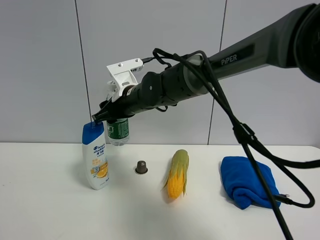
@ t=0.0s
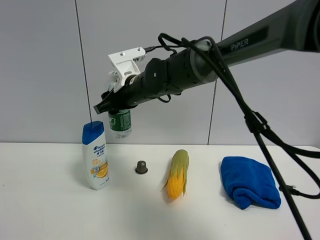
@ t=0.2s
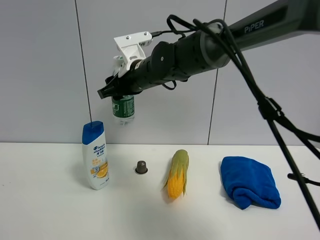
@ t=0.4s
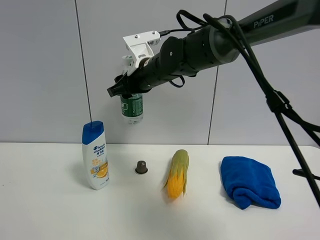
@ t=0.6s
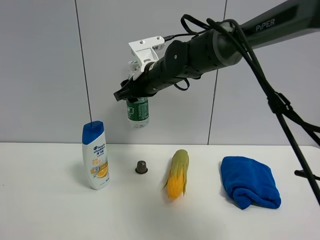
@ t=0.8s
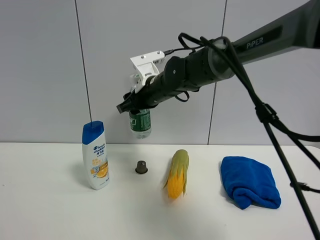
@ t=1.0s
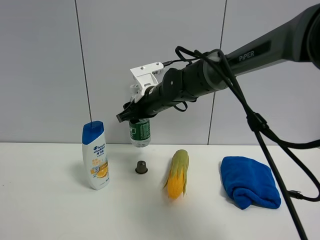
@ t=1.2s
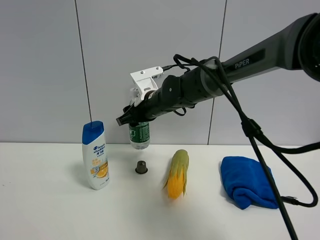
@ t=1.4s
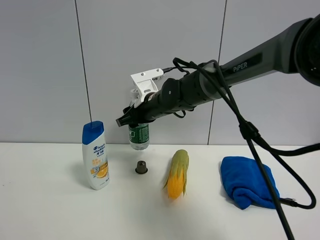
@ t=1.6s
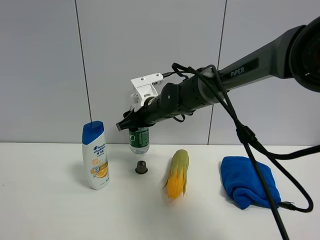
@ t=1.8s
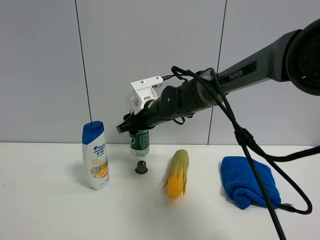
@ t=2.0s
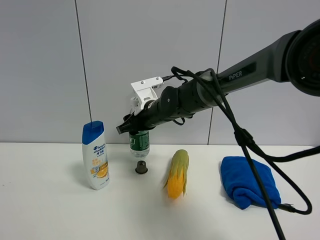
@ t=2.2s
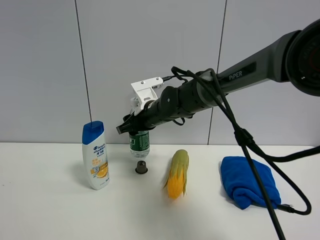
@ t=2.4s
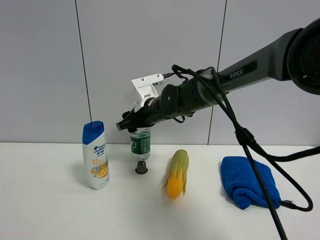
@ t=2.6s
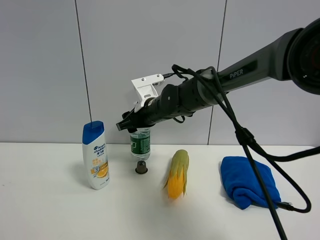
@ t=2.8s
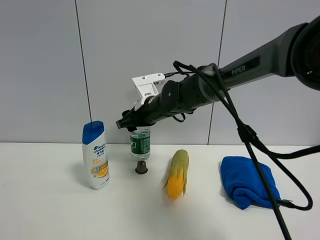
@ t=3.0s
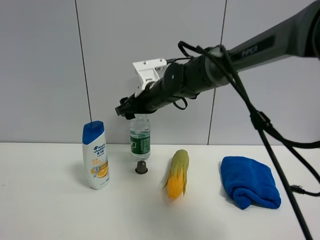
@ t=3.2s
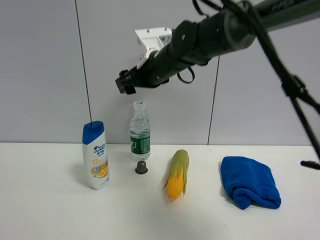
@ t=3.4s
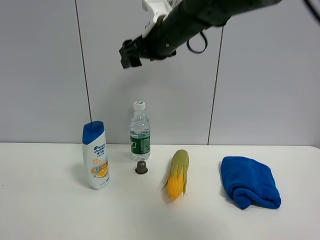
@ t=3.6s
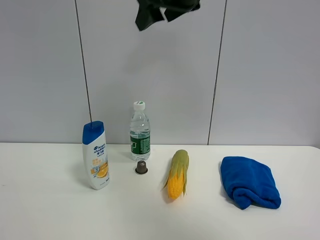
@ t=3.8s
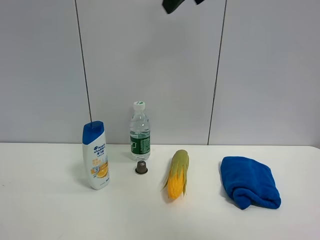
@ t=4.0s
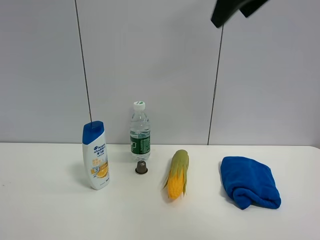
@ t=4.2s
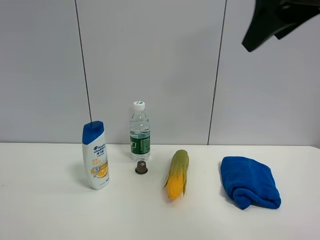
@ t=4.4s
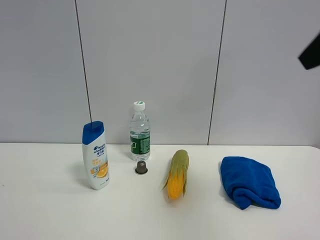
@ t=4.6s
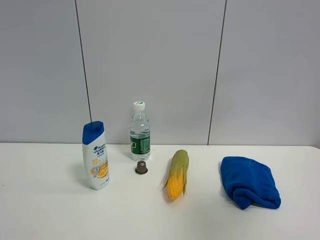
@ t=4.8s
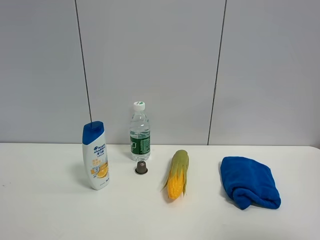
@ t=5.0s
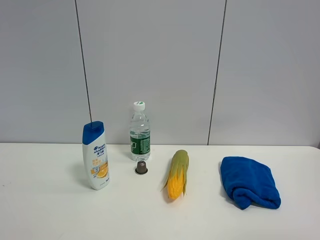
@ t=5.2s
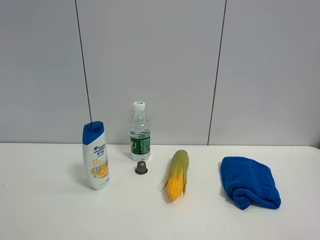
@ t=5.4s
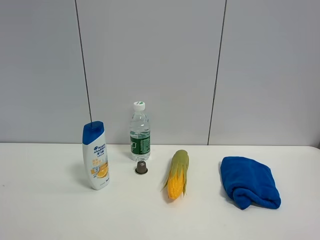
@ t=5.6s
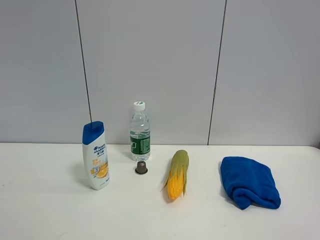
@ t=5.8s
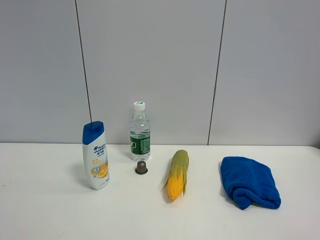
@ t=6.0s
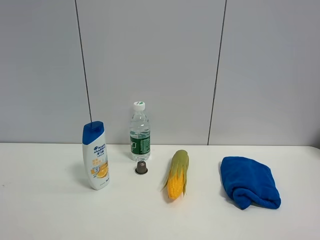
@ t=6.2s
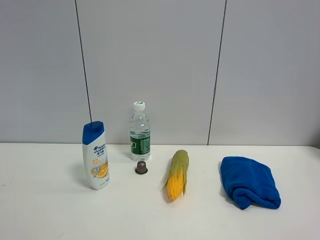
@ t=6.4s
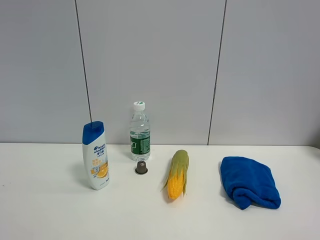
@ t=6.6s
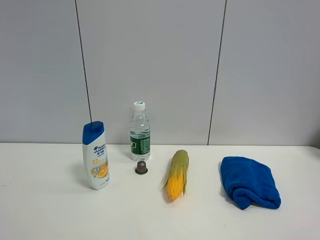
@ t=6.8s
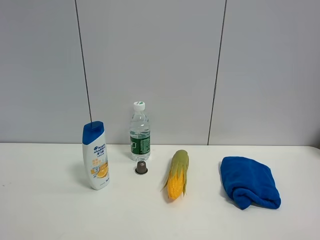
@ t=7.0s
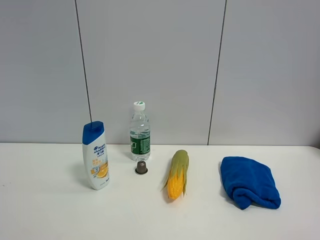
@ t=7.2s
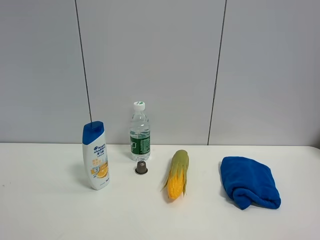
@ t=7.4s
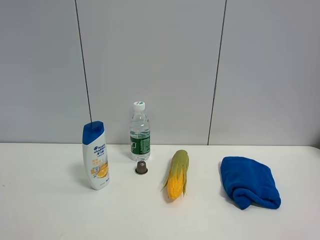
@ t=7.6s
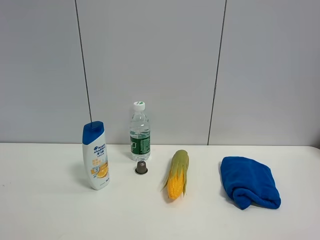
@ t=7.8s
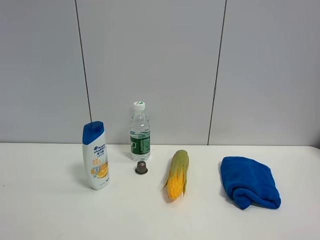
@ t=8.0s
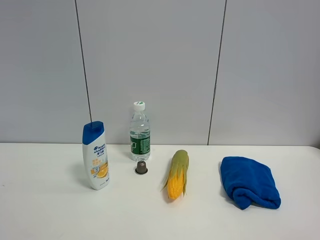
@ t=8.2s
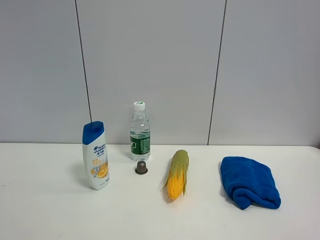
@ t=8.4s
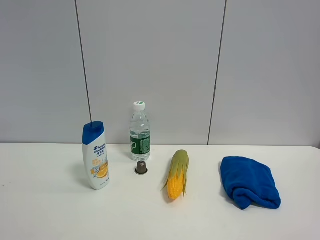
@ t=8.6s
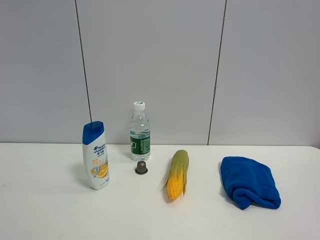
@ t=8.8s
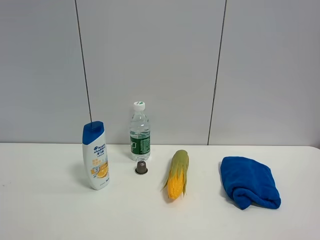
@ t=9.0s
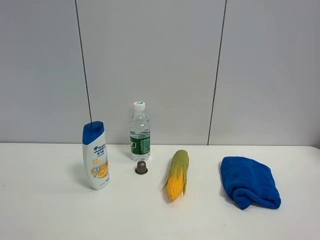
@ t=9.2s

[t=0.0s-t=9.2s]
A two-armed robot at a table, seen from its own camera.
Task of the whole recording: the gripper move the object.
Step, t=0.0s to t=3.2s: Place the YiBao mineral water on the table with the right gripper.
t=0.0s to t=1.6s: The right gripper goes upward and returns, some 5 cm each way.
t=1.6s to t=3.0s: The grippers move only a little.
t=3.0s to t=4.6s: The right gripper moves backward, to the right and upward, roughly 40 cm.
t=4.6s to t=6.2s: The right gripper heads backward and downward, covering some 20 cm.
t=6.2s to t=9.2s: The two grippers keep their place.

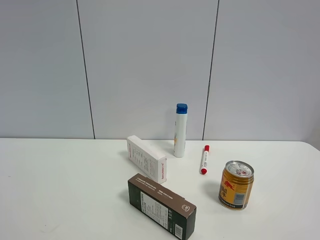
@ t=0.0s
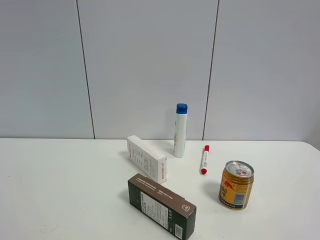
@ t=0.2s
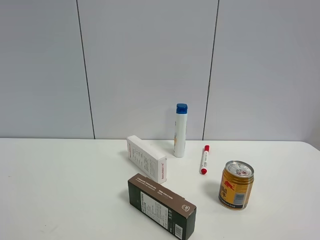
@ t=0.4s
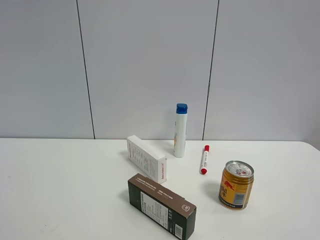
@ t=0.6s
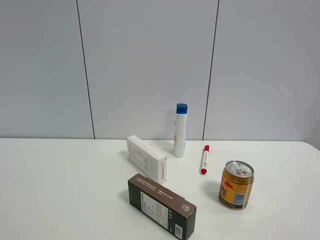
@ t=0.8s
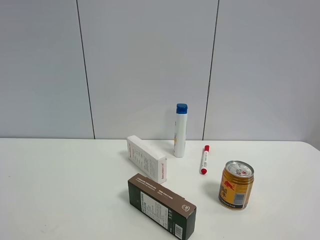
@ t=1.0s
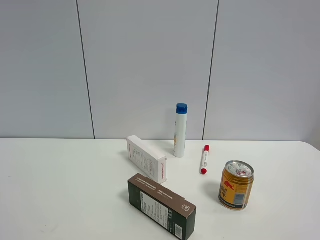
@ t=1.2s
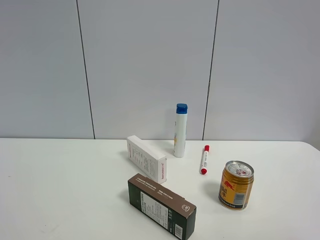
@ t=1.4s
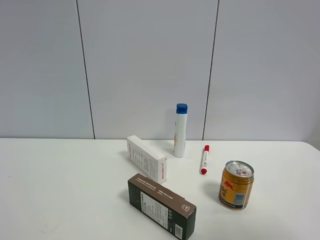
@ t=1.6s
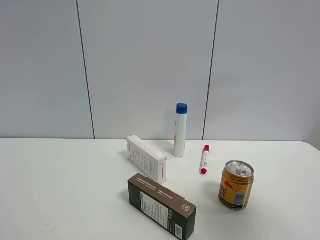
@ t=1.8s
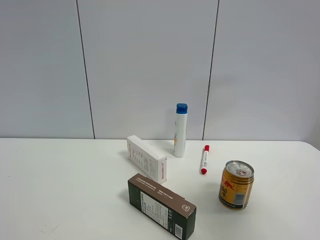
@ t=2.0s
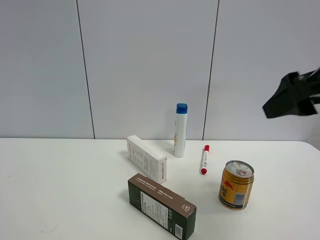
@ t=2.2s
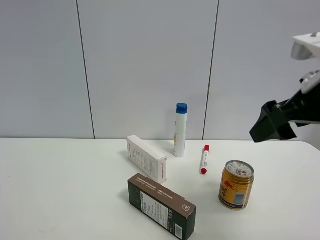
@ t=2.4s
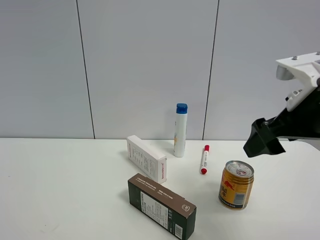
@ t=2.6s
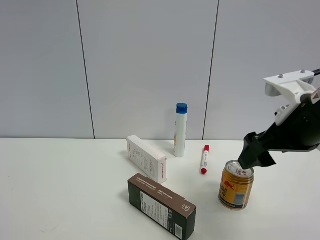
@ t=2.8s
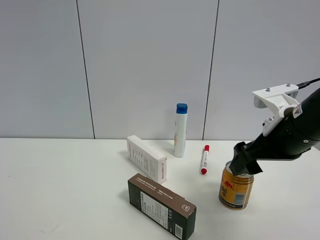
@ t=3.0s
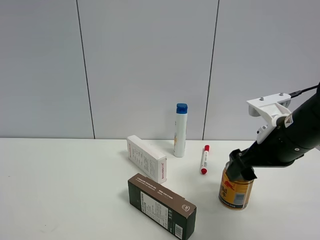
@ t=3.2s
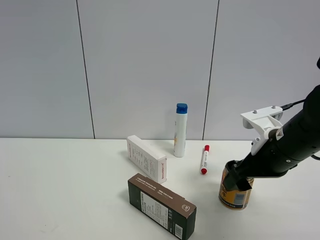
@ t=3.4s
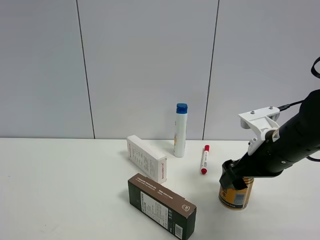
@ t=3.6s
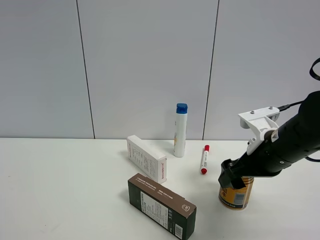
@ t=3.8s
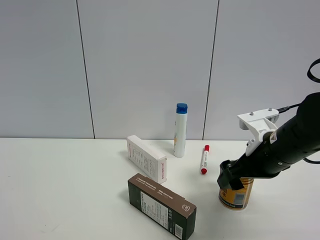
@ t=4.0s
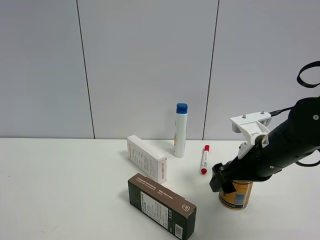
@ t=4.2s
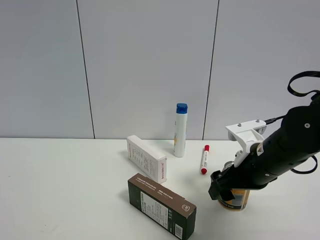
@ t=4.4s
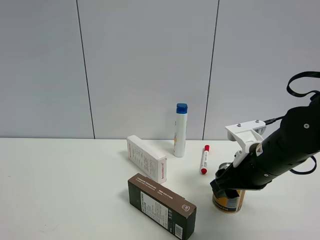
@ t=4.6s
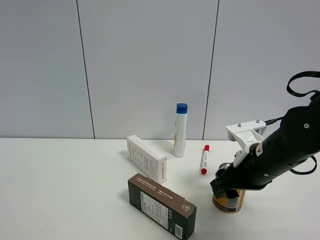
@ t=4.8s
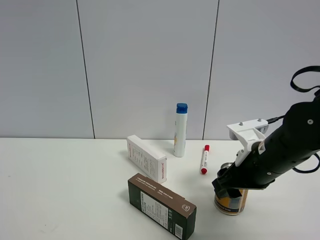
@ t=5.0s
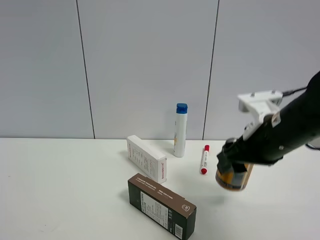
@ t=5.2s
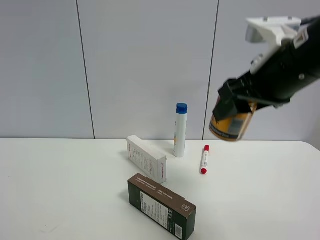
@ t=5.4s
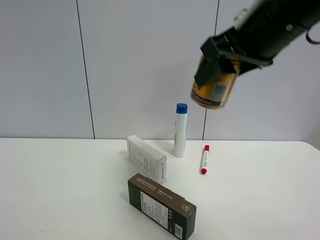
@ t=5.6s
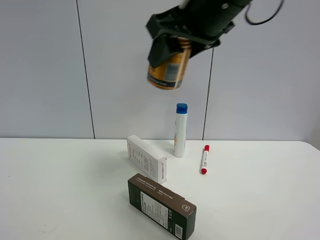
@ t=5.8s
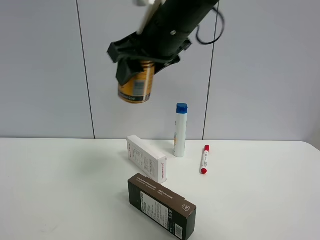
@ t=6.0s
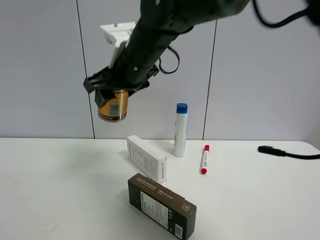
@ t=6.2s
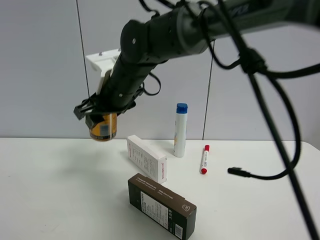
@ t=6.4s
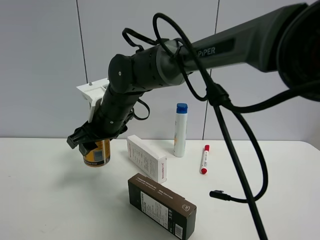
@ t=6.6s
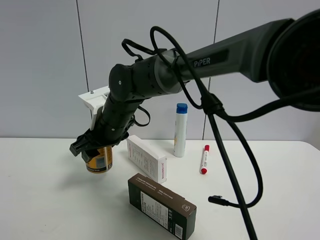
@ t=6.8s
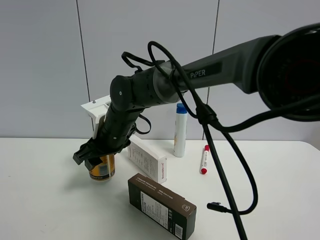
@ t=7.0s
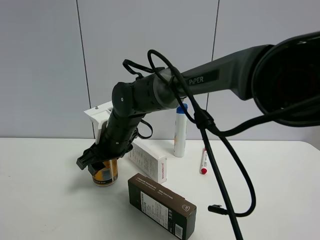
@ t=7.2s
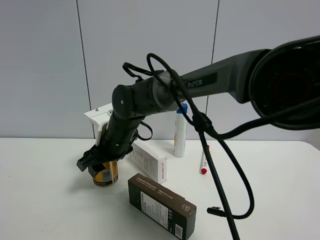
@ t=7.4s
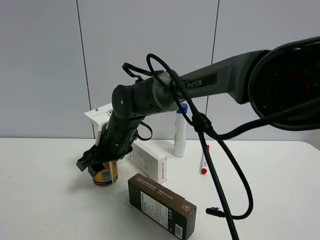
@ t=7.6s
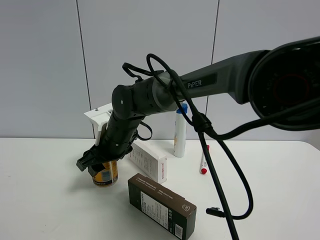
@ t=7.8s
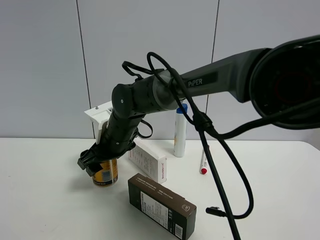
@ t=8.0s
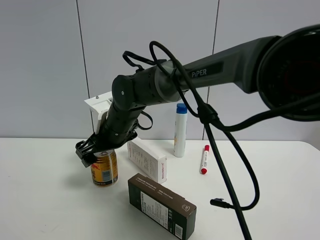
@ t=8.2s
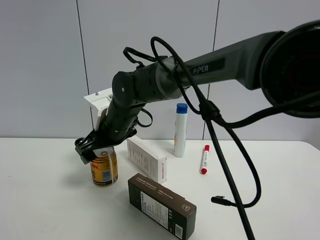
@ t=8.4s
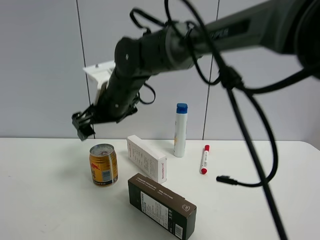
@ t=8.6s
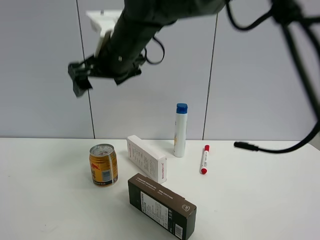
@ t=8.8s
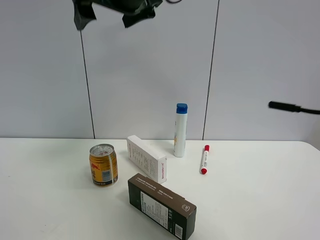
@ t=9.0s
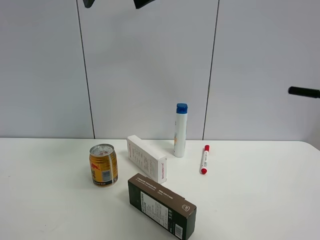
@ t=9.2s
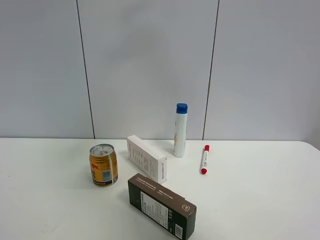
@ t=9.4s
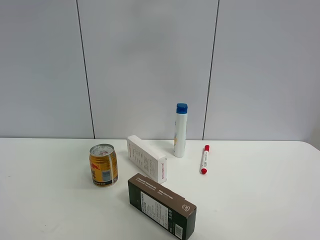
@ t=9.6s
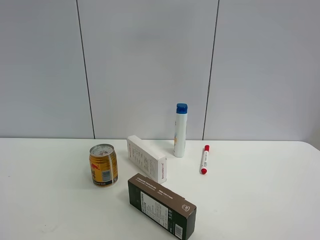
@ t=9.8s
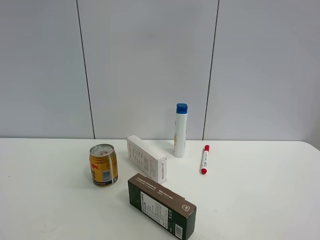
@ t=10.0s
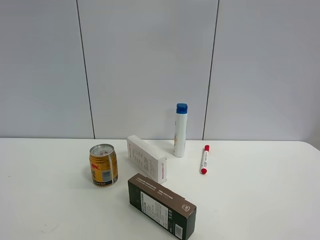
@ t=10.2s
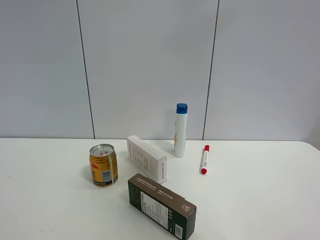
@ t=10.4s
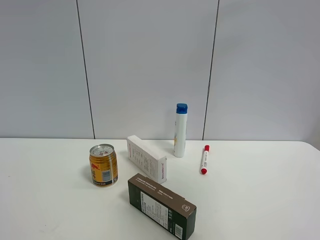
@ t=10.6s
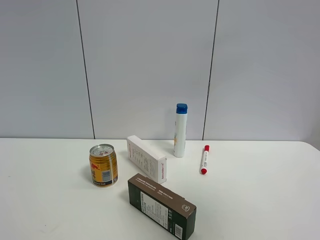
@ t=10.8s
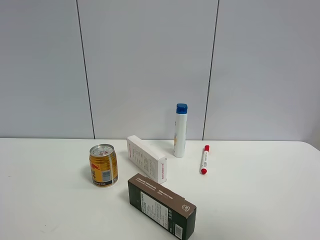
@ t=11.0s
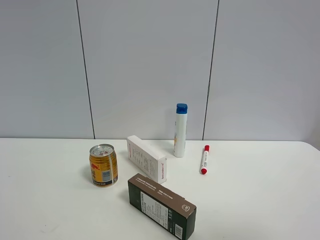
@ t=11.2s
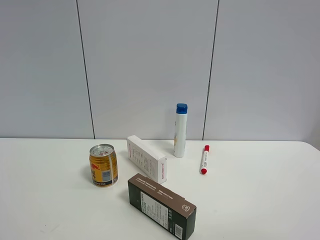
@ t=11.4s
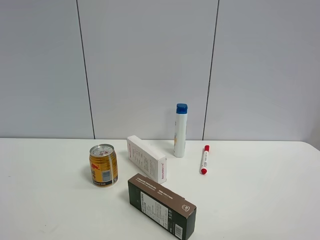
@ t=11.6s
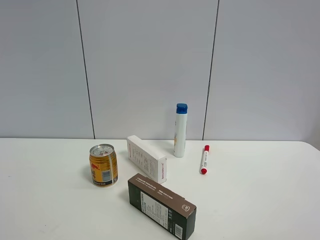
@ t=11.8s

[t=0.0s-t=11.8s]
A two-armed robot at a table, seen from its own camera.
Task of the whole recording: the gripper move the object.
Step, t=0.0s to t=4.8s: Grasp the red bull with the right gripper.
Step, t=5.0s to t=8.4s: Place the red bull on the table with the right gripper.
t=1.4s to t=3.0s: The right gripper is displaced forward and downward by roughly 30 cm.
t=3.0s to t=4.4s: The right gripper goes some 5 cm downward.
t=4.4s to t=6.0s: The right gripper moves upward and to the left, some 25 cm, and closes up.
t=6.0s to t=7.4s: The right gripper travels downward and to the left by some 25 cm.
t=7.4s to t=8.8s: The right gripper moves upward, about 15 cm, and opens its fingers.
t=8.8s to t=10.4s: The right gripper is displaced to the right, upward and backward by roughly 40 cm.
t=10.4s to t=11.8s: The right gripper heads downward and backward, covering about 30 cm.

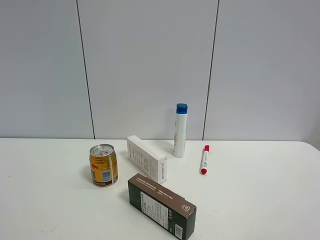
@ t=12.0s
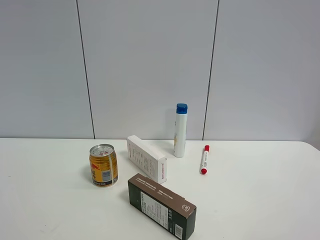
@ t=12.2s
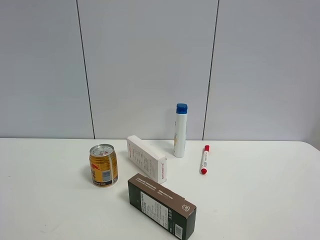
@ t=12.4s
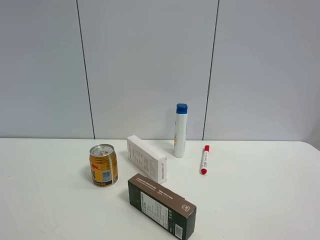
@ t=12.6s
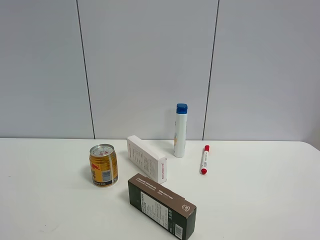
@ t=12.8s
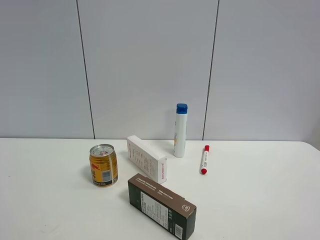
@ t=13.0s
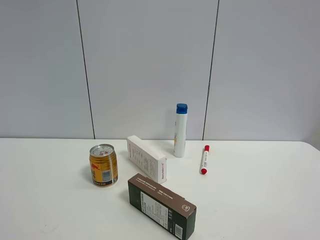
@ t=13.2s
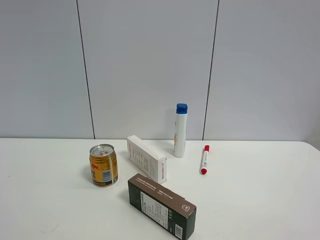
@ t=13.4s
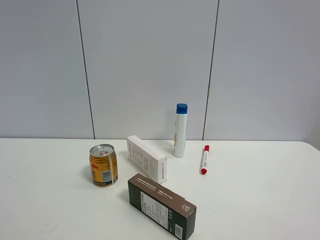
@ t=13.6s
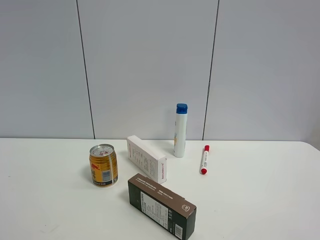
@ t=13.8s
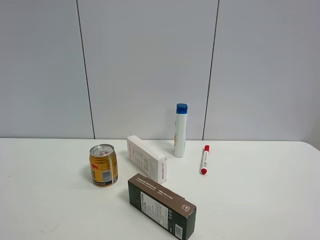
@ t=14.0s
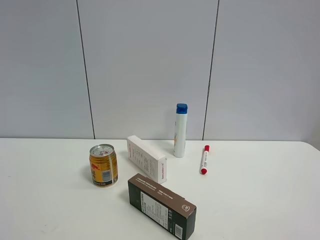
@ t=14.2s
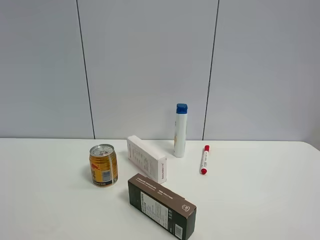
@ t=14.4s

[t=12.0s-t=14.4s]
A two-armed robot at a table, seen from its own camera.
Task of the whole recording: the gripper move the object.
t=13.2s to t=14.4s: Both grippers stay put.
